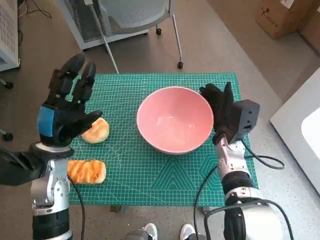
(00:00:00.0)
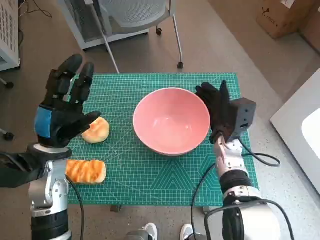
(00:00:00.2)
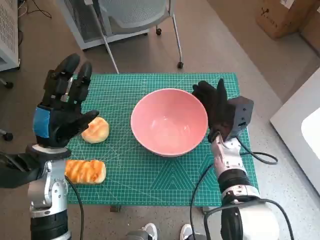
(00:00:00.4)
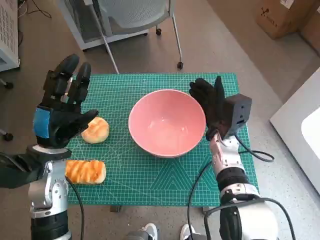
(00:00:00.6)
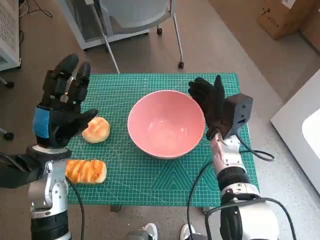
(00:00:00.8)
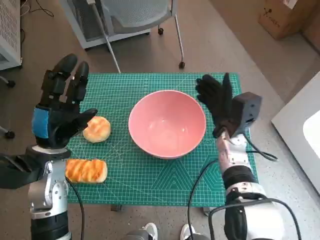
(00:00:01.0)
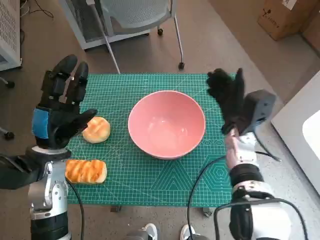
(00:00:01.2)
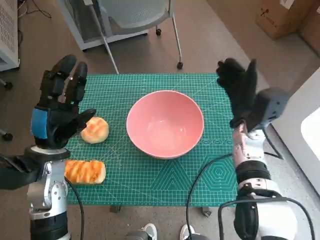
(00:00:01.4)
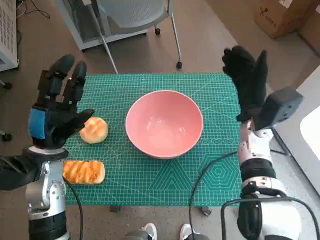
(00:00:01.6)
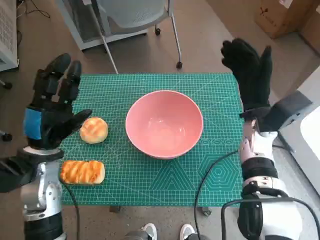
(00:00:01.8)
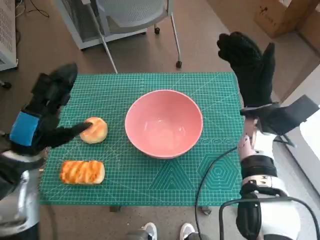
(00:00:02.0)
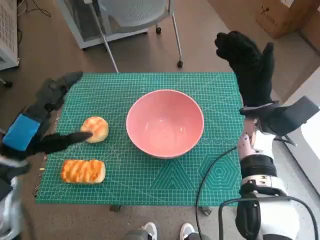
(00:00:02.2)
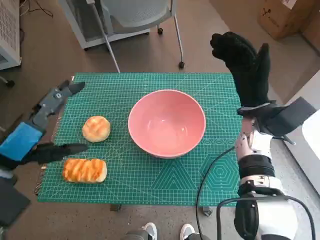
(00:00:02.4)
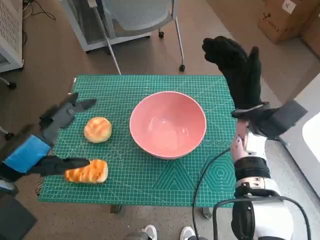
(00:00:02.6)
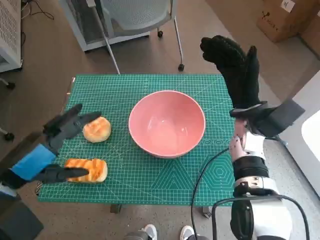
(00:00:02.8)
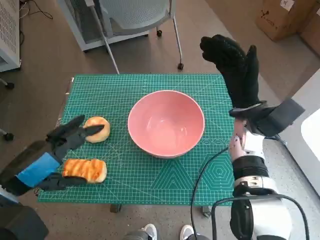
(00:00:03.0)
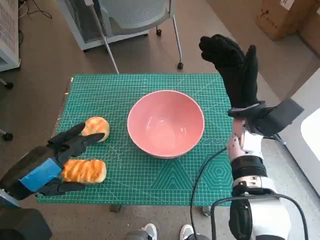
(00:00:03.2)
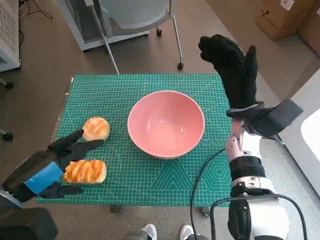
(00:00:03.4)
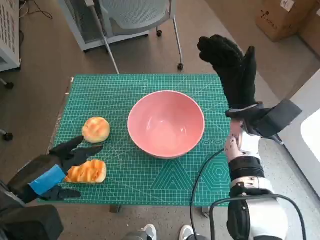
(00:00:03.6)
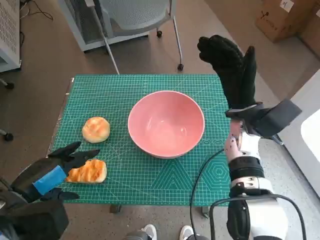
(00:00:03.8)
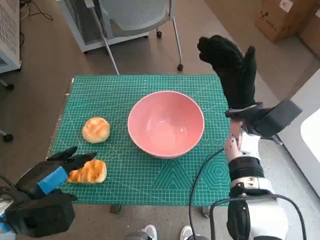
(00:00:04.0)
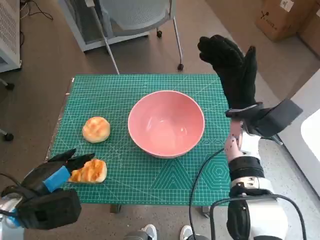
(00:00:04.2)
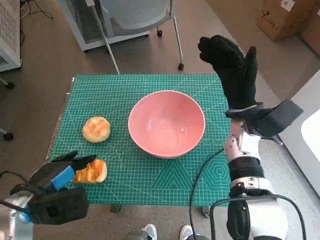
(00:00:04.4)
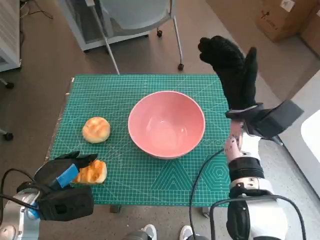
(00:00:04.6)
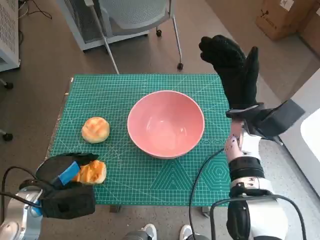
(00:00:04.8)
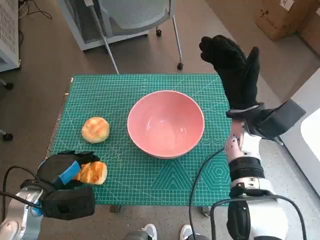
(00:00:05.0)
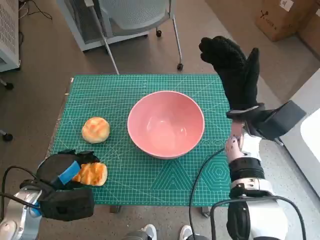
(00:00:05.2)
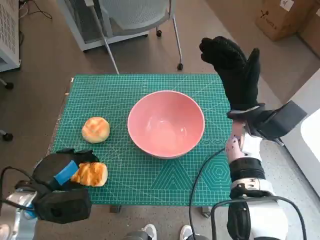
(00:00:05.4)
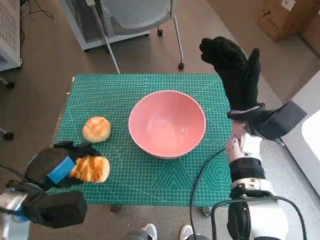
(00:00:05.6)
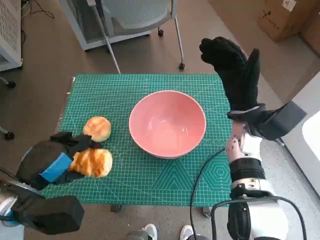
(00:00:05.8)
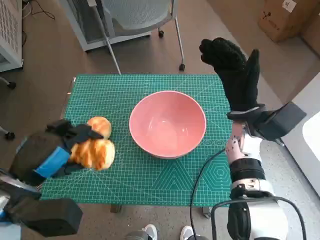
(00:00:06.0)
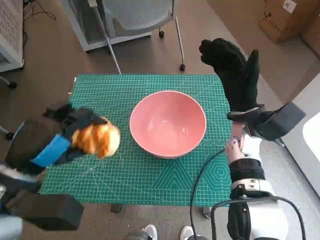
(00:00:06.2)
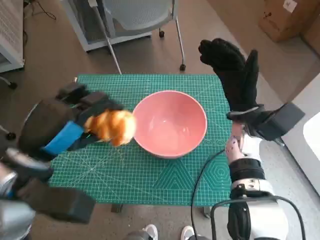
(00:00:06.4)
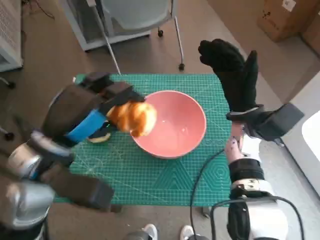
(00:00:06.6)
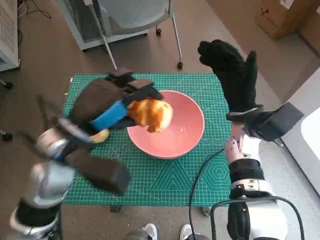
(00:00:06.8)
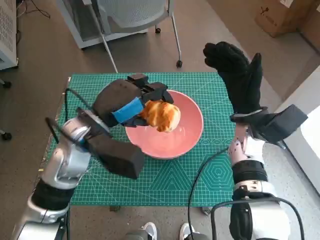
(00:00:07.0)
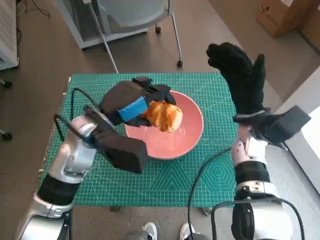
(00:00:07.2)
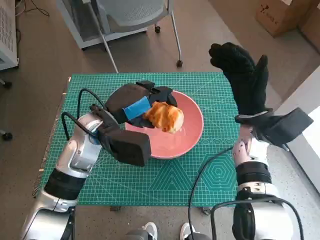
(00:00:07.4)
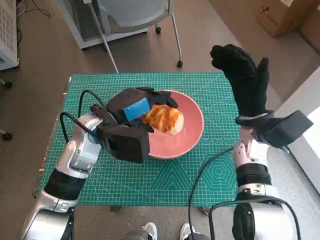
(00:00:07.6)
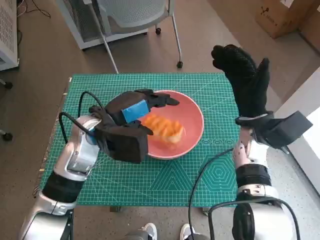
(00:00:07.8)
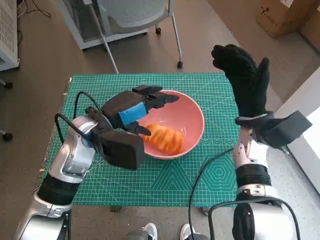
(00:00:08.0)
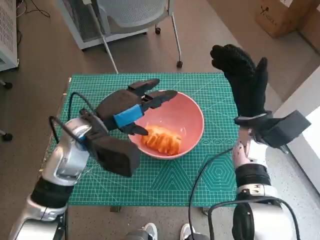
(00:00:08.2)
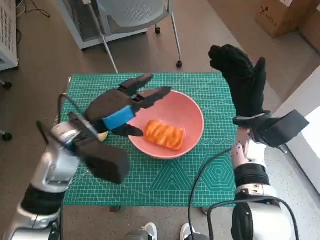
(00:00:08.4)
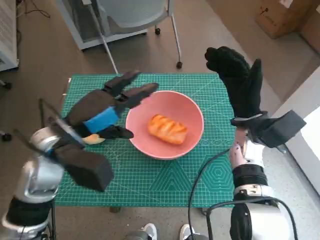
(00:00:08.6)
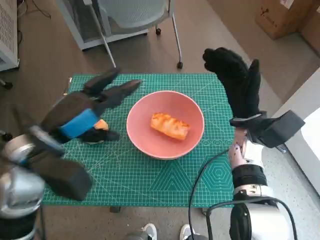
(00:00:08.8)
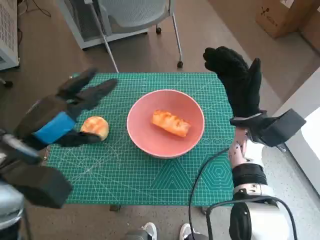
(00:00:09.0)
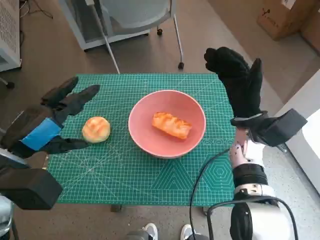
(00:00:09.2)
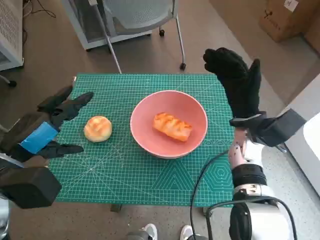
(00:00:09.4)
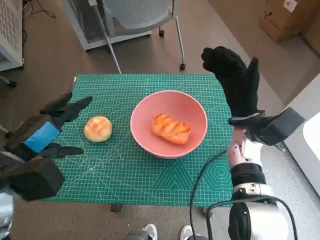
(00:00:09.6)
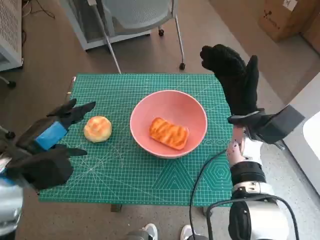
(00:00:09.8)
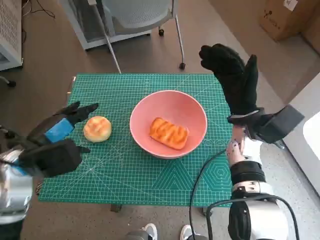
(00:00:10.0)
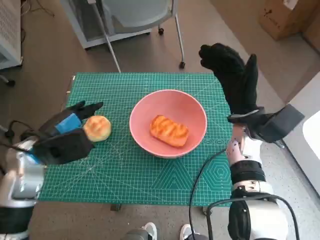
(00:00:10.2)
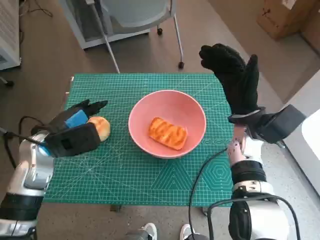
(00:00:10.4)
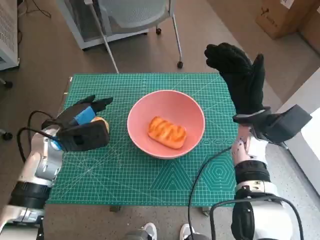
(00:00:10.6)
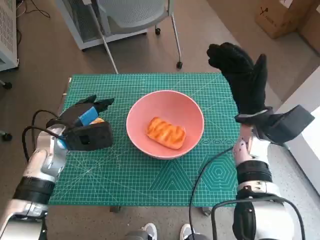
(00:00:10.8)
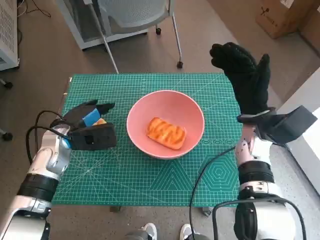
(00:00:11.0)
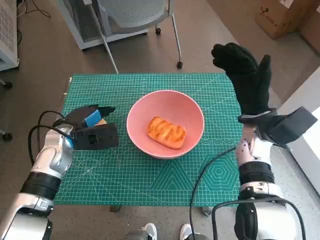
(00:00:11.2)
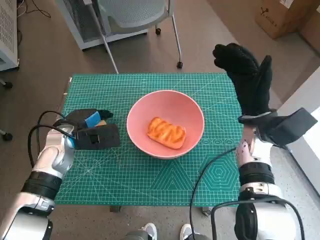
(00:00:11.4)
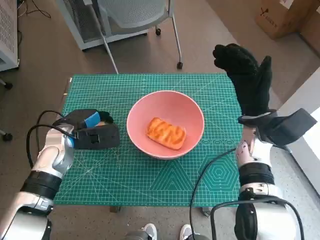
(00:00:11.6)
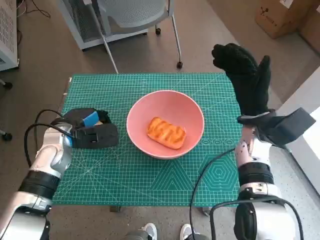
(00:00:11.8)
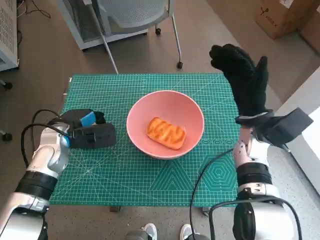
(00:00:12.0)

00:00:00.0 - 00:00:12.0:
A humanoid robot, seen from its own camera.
Step, 00:00:01.0 - 00:00:05.0: Grasp the long bread with left hand.
Step, 00:00:05.2 - 00:00:08.0: Place the long bread in pink bowl with left hand.
Step, 00:00:08.2 - 00:00:11.6: Grasp the round bread with left hand.
00:00:00.0 - 00:00:01.6: The right hand goes approximately 5 cm upward.
00:00:01.6 - 00:00:03.0: The left hand shifts roughly 10 cm backward and upward.
00:00:03.0 - 00:00:04.4: The left hand travels downward by some 10 cm.
00:00:04.4 - 00:00:06.0: The left hand heads upward, covering approximately 5 cm.
00:00:06.0 - 00:00:07.6: The left hand travels forward and to the right by about 15 cm.
00:00:07.6 - 00:00:09.0: The left hand travels backward and to the left by about 10 cm.
00:00:09.0 - 00:00:10.4: The left hand moves downward and forward, some 10 cm.

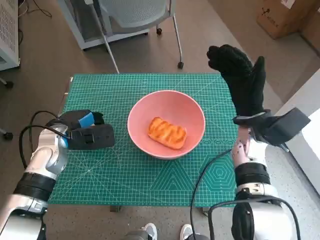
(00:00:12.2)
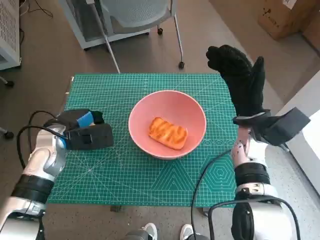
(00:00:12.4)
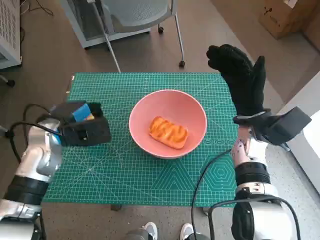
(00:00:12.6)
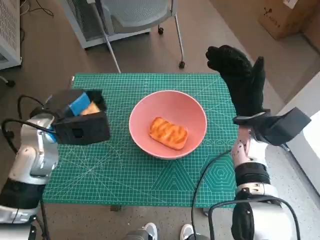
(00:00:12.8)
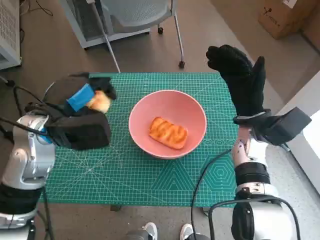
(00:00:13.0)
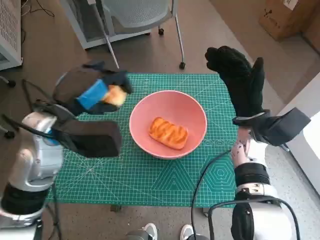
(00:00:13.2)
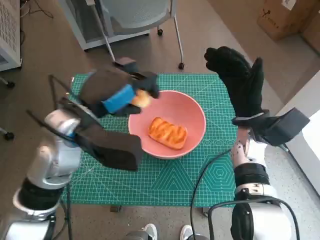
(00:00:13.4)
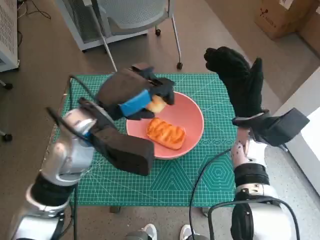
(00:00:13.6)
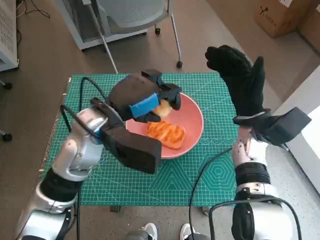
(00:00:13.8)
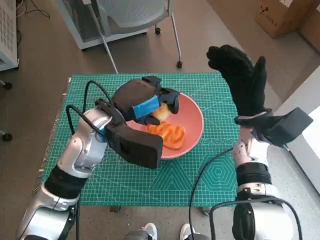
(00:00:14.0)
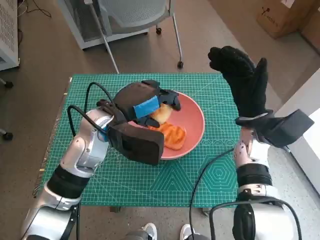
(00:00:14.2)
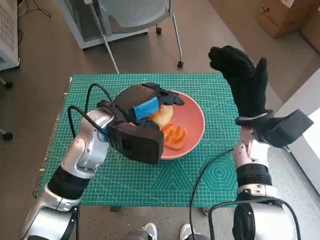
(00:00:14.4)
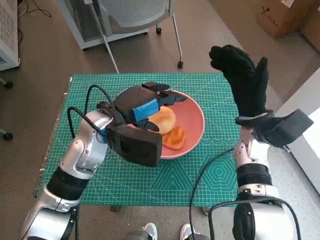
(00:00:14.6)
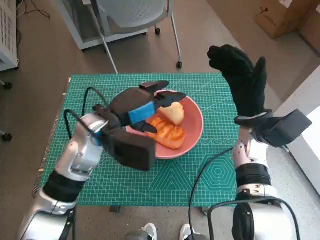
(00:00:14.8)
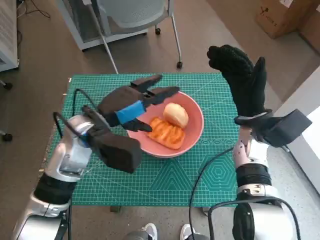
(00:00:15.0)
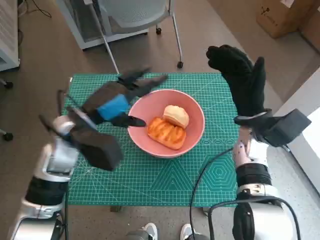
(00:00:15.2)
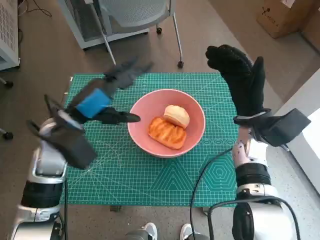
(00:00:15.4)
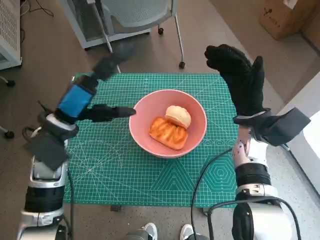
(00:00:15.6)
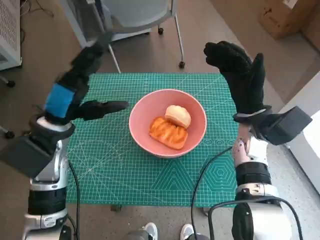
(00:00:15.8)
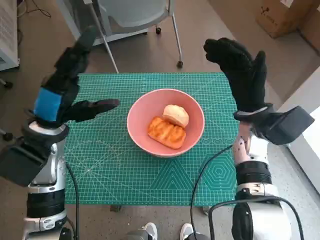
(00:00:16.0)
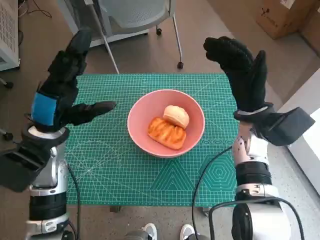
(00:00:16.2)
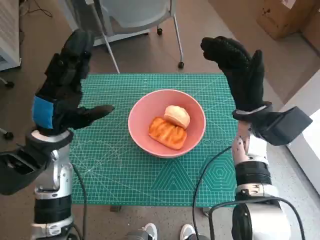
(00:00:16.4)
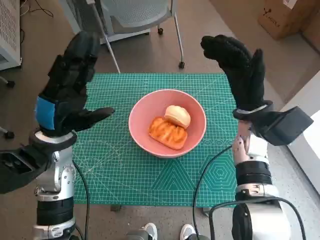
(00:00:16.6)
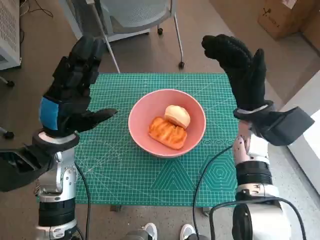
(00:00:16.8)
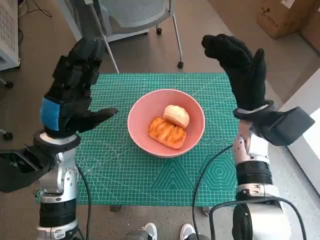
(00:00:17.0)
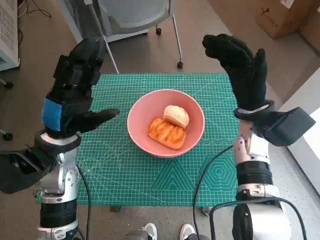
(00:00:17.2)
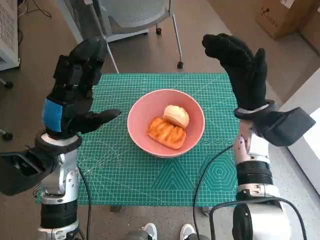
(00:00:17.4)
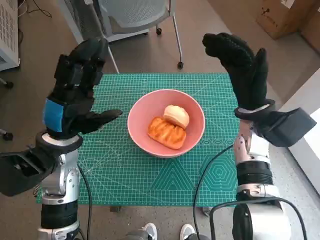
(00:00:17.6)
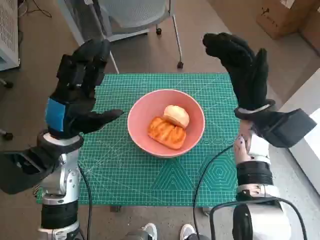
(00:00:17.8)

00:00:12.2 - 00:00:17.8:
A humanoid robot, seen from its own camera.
Step, 00:00:12.2 - 00:00:14.6: Place the round bread in pink bowl with left hand.
00:00:12.2 - 00:00:13.6: The left hand moves upward and to the right, some 15 cm.
00:00:13.6 - 00:00:15.0: There are only small adjustments of the hands.
00:00:15.0 - 00:00:16.4: The left hand travels to the left by about 5 cm.
00:00:16.4 - 00:00:17.8: The hands stay close to where they were, moving slightly.
